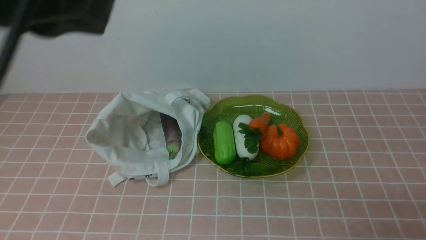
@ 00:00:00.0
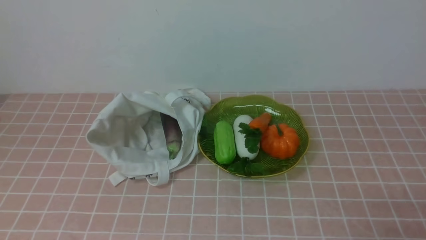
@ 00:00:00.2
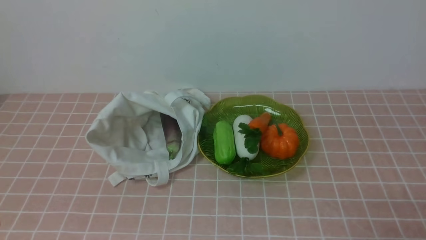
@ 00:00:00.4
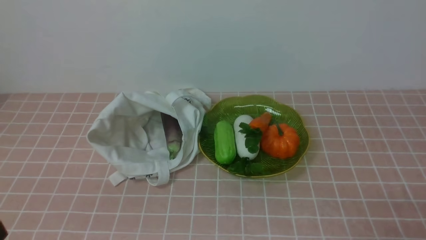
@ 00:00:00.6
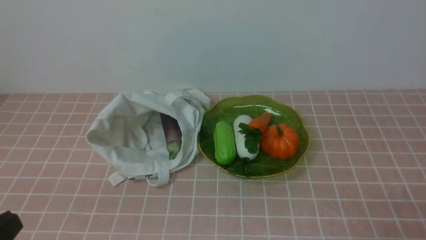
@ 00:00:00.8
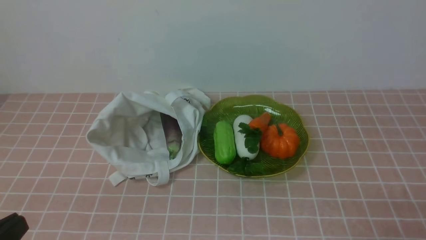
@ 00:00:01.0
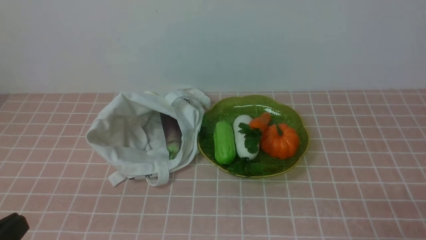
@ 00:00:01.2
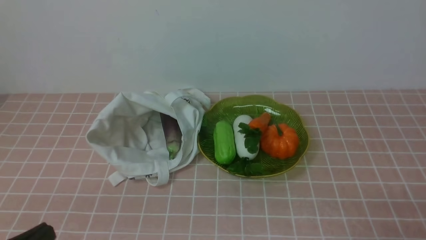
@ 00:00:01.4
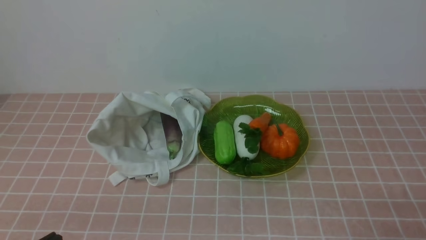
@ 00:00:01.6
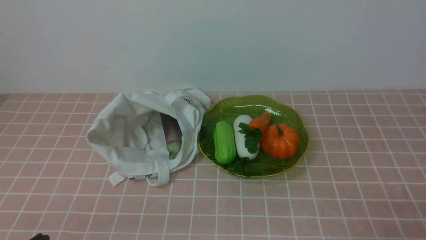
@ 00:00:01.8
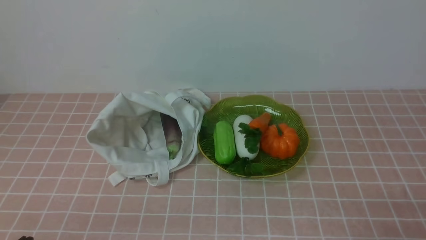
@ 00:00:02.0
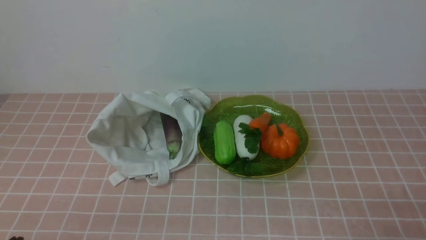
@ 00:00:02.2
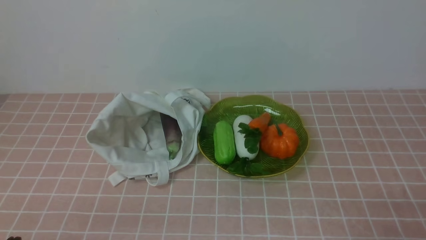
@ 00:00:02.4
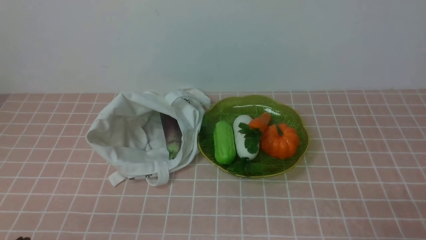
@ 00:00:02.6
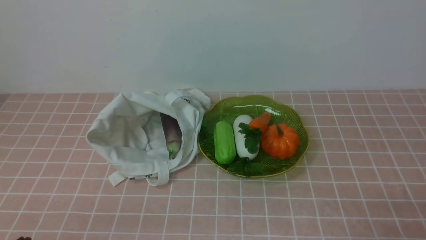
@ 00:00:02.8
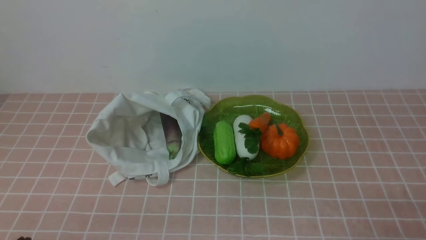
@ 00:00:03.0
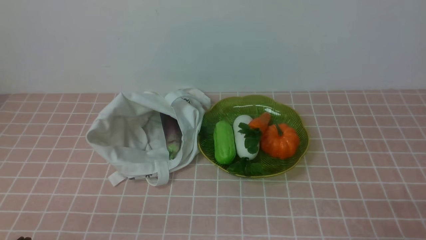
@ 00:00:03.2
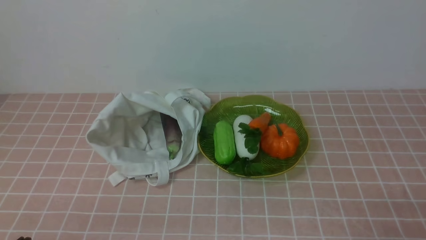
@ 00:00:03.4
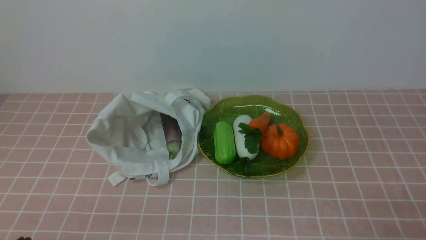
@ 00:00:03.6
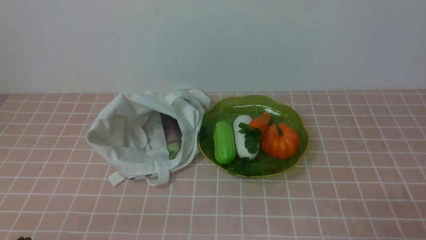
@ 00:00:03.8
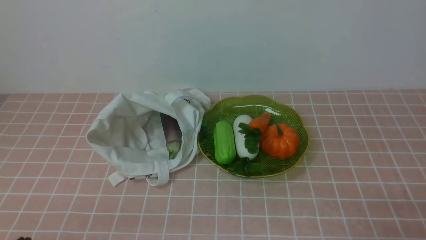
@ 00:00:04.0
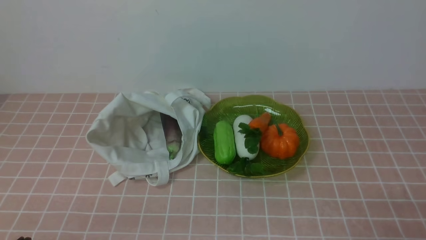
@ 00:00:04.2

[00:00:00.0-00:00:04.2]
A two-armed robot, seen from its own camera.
Task of the whole recording: take vegetables from bag on pink coffee tablecloth place on plate.
00:00:00.0 to 00:00:01.4: The left gripper heads downward, covering approximately 25 cm.
00:00:02.8 to 00:00:04.2: Both grippers stay about where they are.
